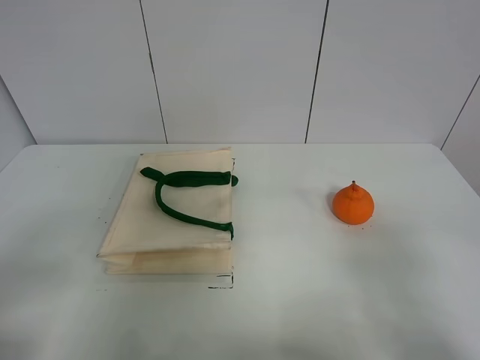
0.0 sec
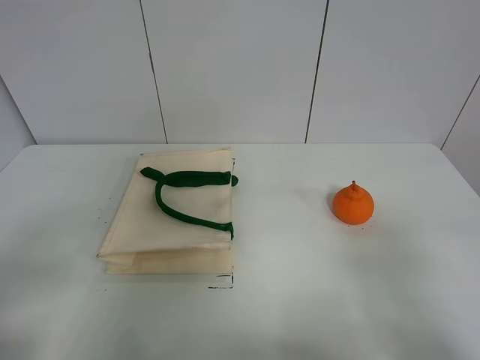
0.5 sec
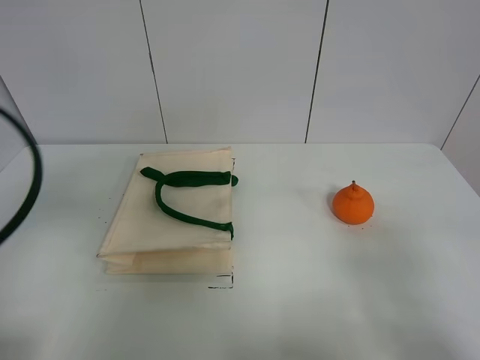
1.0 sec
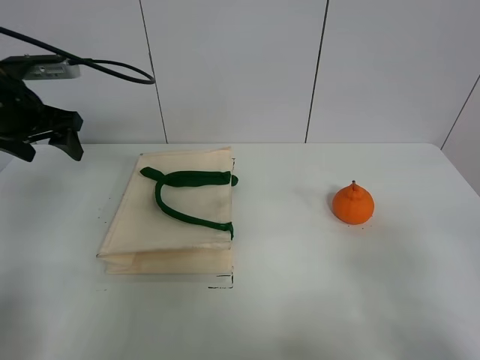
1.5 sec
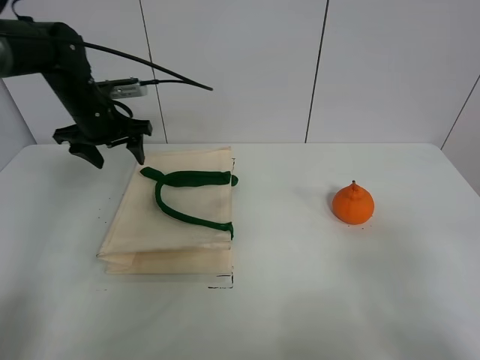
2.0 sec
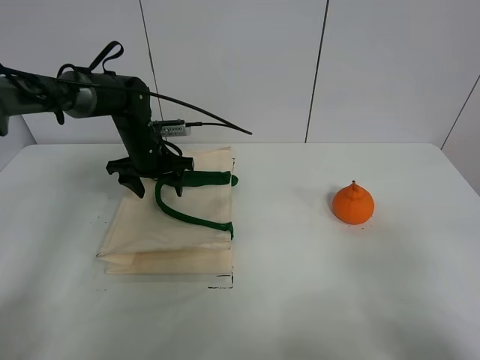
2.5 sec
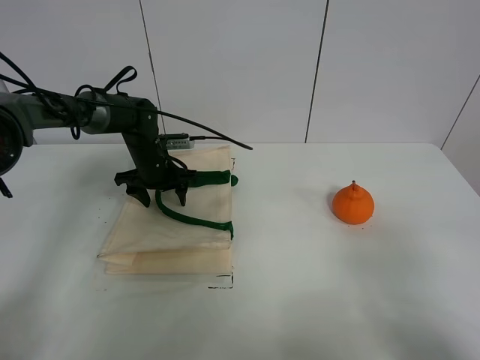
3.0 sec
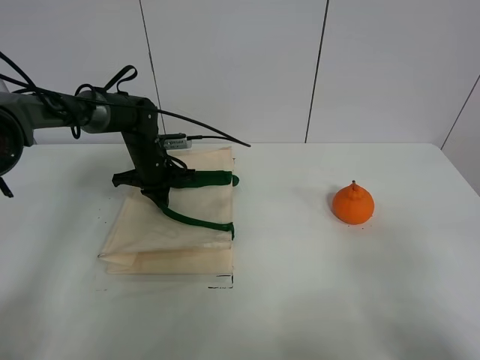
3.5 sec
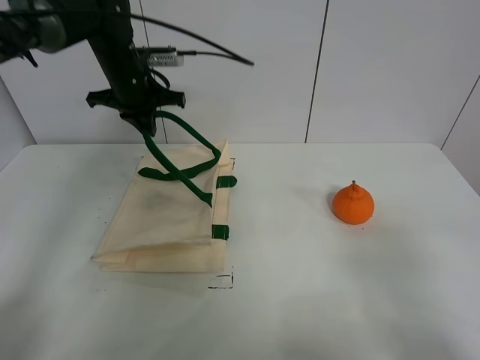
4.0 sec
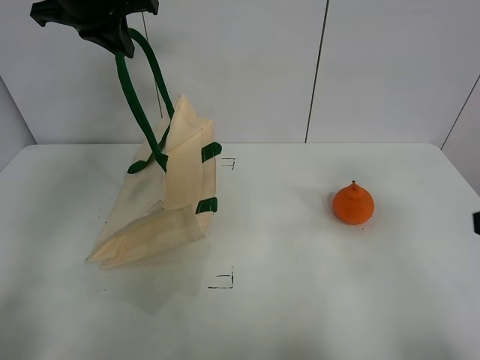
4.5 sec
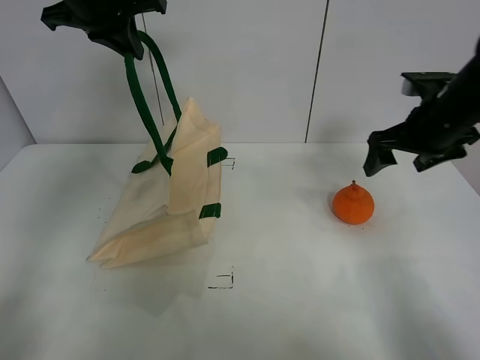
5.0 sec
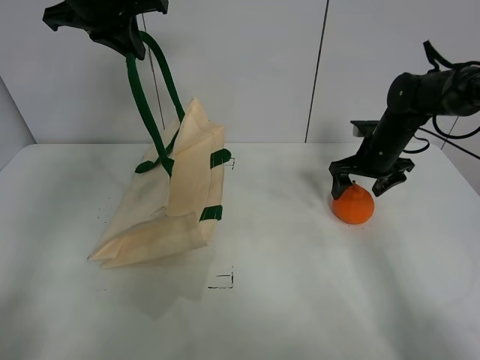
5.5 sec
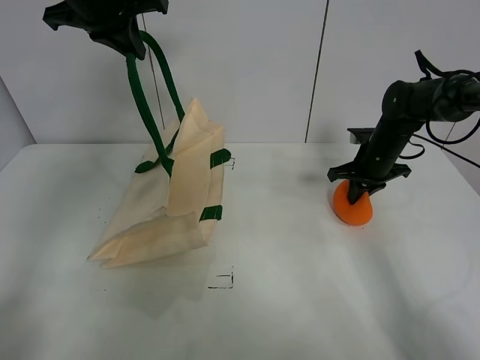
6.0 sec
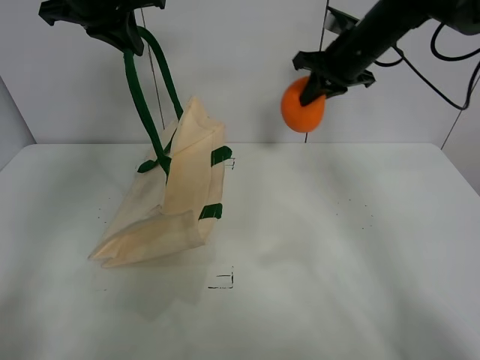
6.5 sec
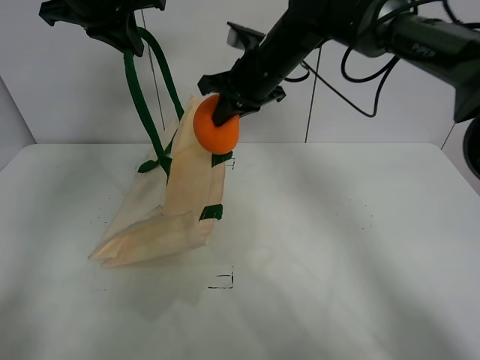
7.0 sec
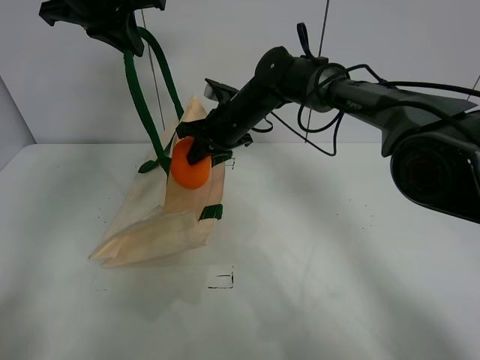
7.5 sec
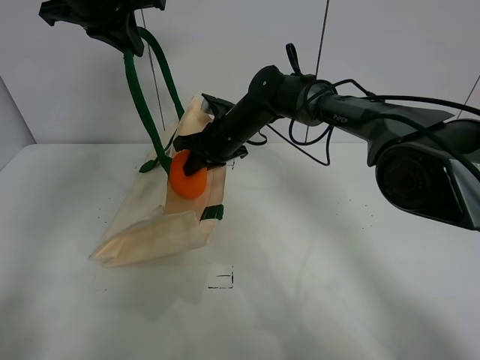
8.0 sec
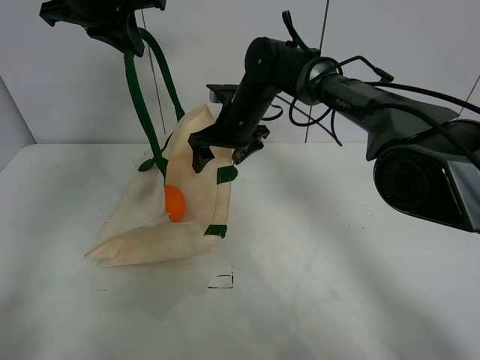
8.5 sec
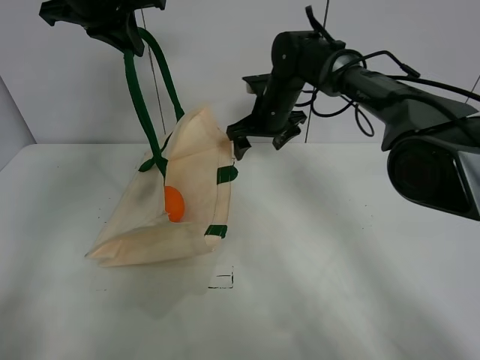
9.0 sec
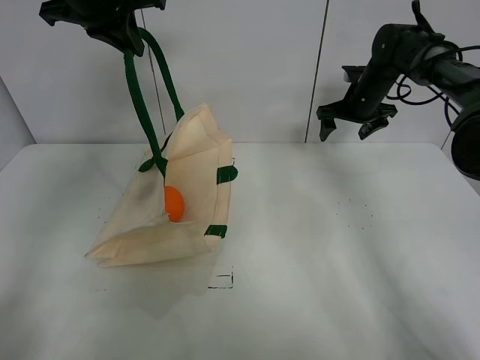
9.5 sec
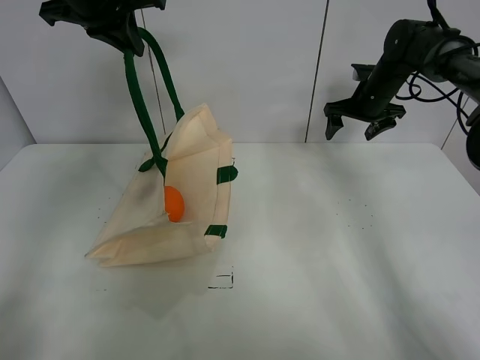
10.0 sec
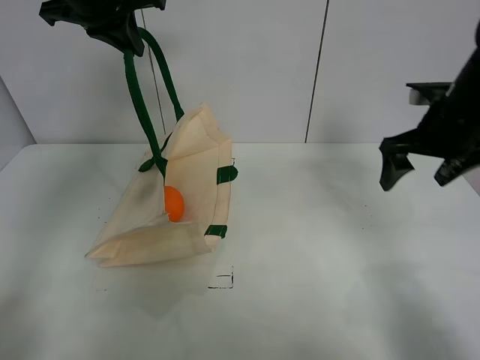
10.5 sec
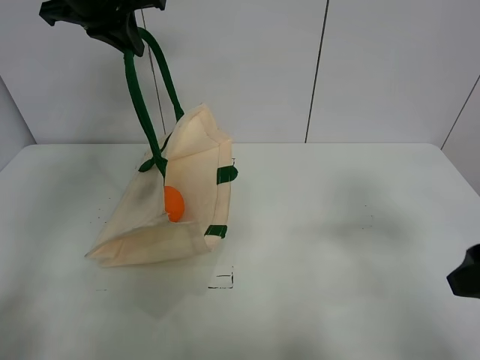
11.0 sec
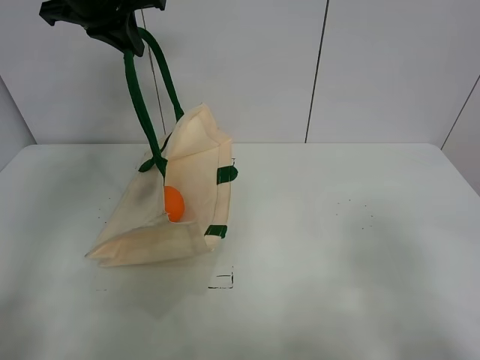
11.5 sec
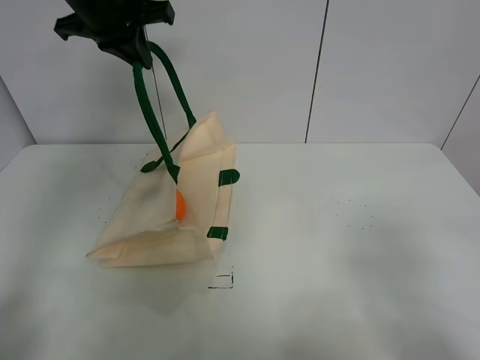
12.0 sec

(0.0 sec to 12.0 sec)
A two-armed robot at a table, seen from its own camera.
Task of the whole recording: open the white linen bag and put the orange in the bag.
Step, 0.0 sec - 4.0 sec: Put down the handbag with left gripper.
Step, 4.5 sec - 6.0 sec: Grasp the orange with right gripper.
Step, 6.5 sec - 8.5 sec: Place the orange in the handbag with right gripper.
0.0 sec - 2.0 sec: The left gripper is displaced forward by some 40 cm.
2.0 sec - 4.0 sec: The left gripper shifts roughly 5 cm upward, and closes its fingers.
4.0 sec - 6.0 sec: The left gripper travels upward and backward by roughly 15 cm. Meanwhile the right gripper moves forward, some 40 cm, and closes up.
6.0 sec - 8.0 sec: The right gripper shifts some 25 cm to the left.
8.0 sec - 10.0 sec: The right gripper travels to the right by some 25 cm, and opens up.
10.0 sec - 12.0 sec: The right gripper travels backward by roughly 50 cm.

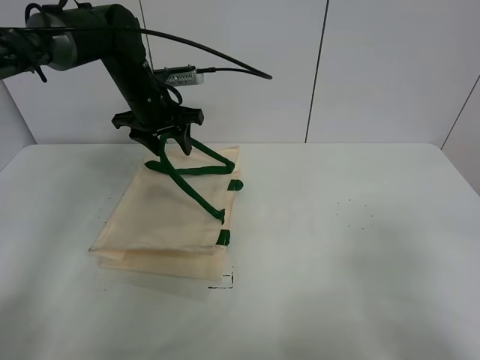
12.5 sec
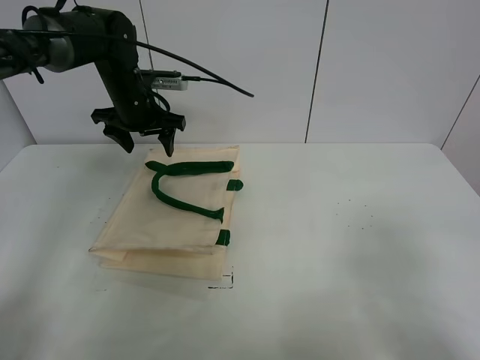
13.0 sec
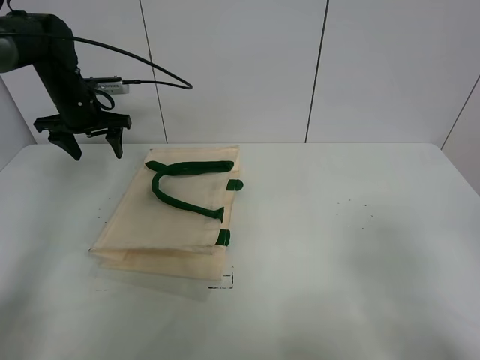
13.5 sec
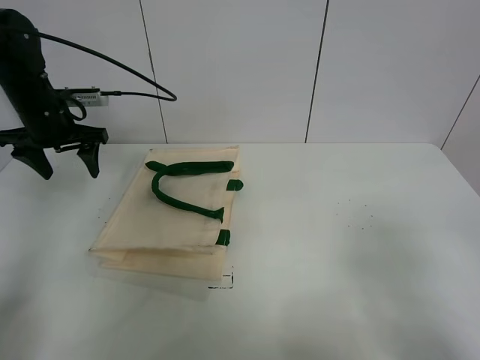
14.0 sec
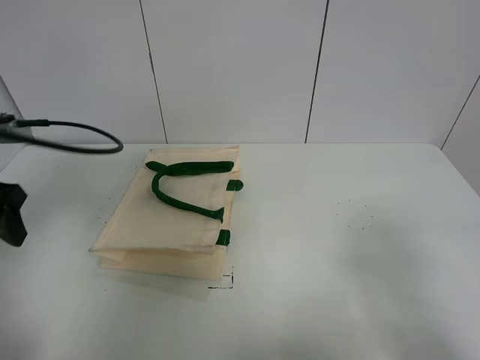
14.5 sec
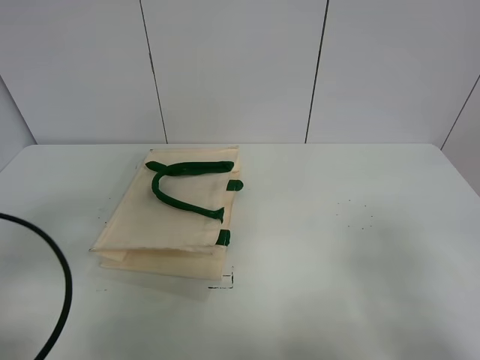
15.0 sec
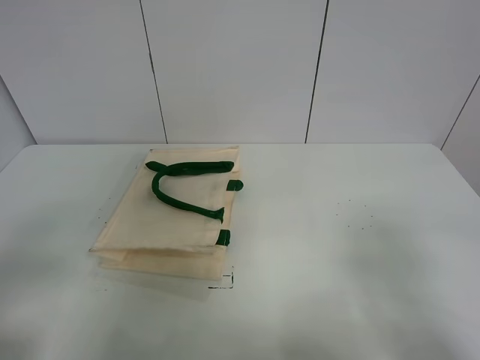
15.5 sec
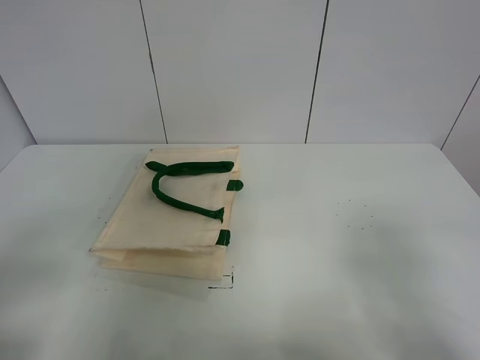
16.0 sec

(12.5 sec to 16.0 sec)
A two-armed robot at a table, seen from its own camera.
Task of the whole recording: open the white linen bag and put the orange in the bag.
12.5 sec - 14.5 sec: The left gripper moves backward and to the left, roughly 30 cm.
14.5 sec - 16.0 sec: The left gripper is displaced backward by about 20 cm.
